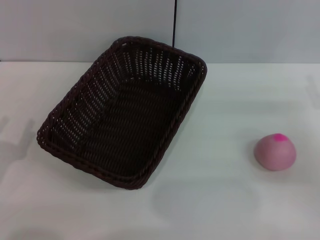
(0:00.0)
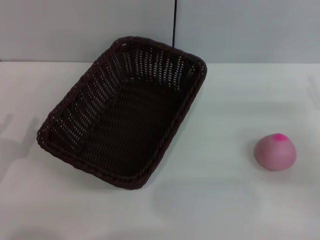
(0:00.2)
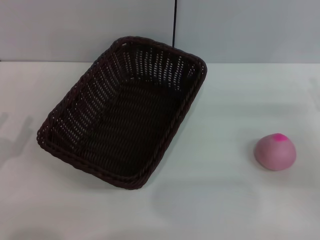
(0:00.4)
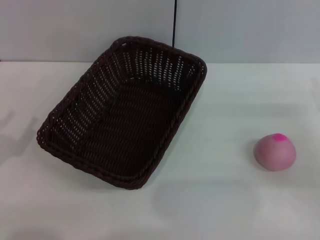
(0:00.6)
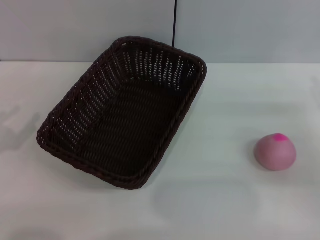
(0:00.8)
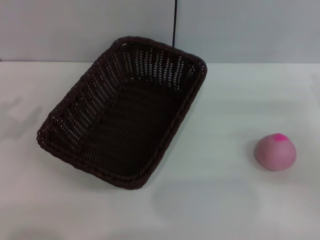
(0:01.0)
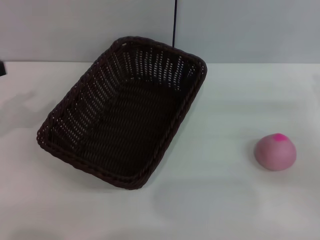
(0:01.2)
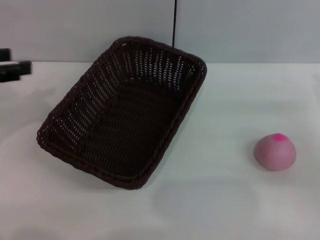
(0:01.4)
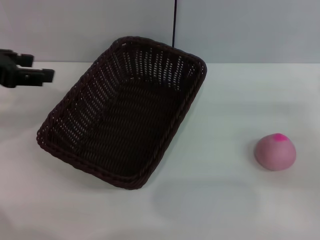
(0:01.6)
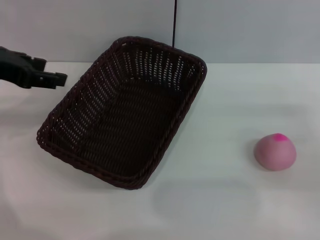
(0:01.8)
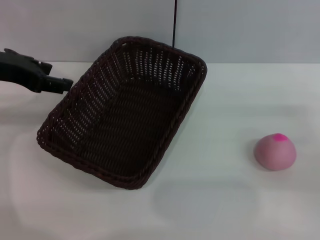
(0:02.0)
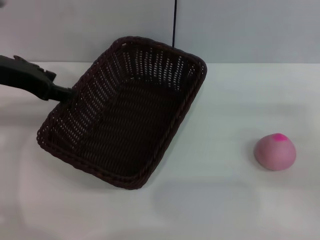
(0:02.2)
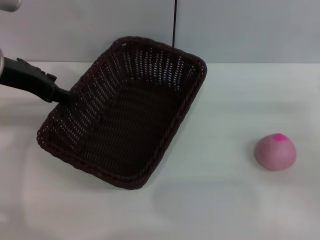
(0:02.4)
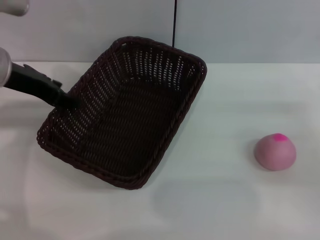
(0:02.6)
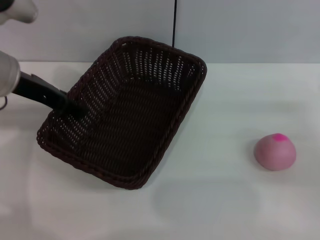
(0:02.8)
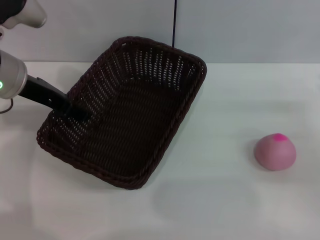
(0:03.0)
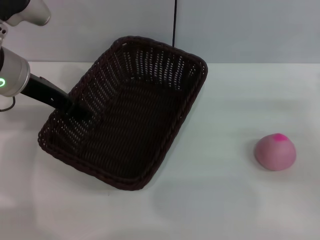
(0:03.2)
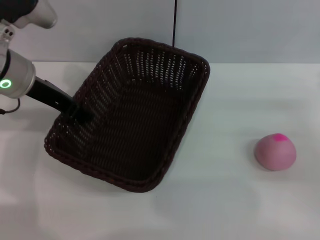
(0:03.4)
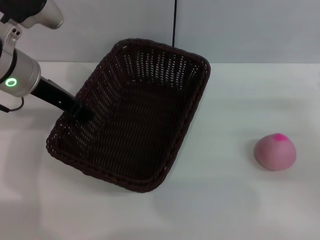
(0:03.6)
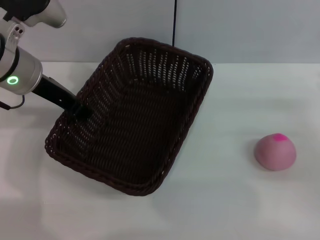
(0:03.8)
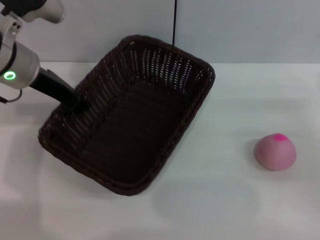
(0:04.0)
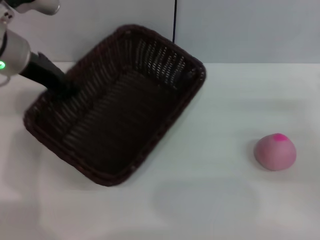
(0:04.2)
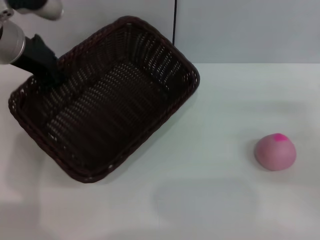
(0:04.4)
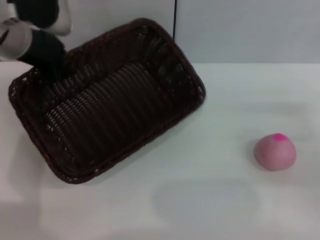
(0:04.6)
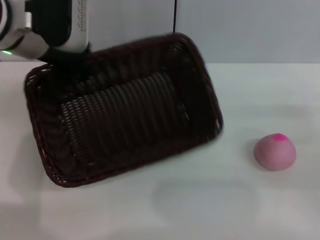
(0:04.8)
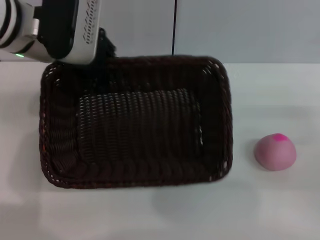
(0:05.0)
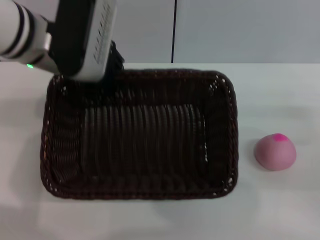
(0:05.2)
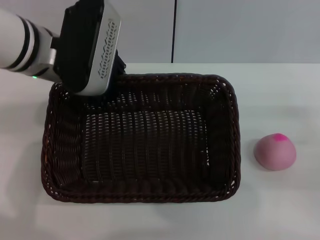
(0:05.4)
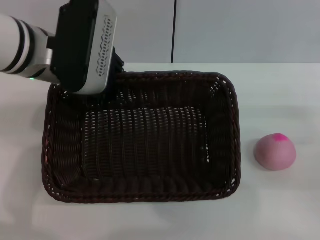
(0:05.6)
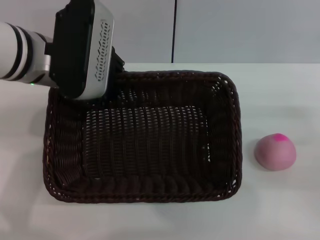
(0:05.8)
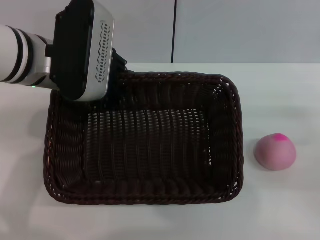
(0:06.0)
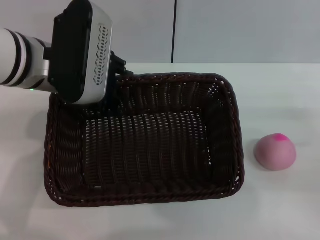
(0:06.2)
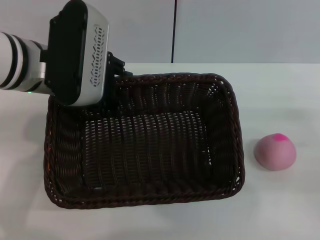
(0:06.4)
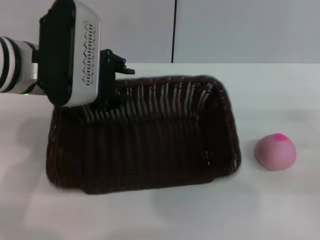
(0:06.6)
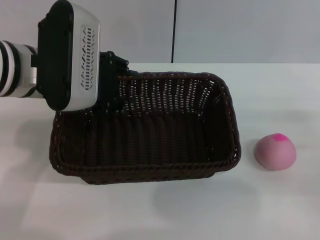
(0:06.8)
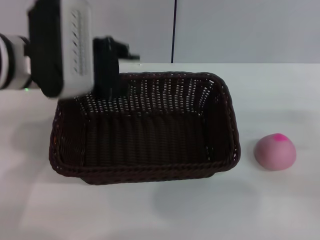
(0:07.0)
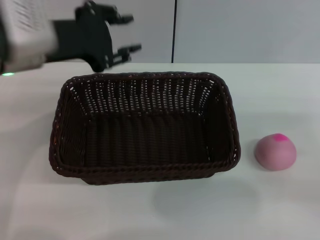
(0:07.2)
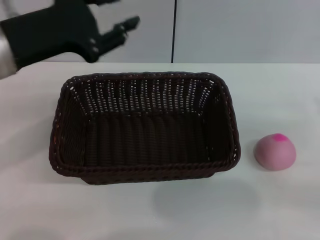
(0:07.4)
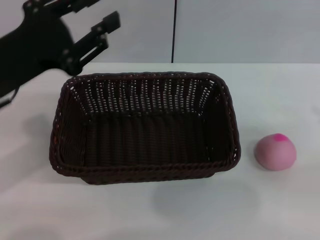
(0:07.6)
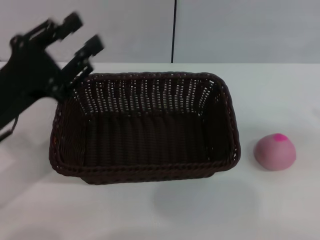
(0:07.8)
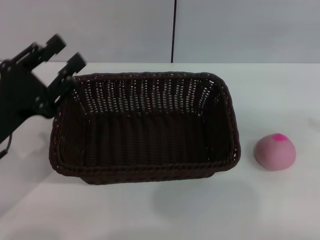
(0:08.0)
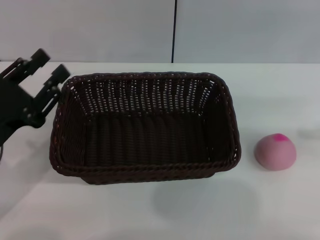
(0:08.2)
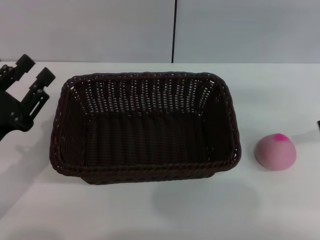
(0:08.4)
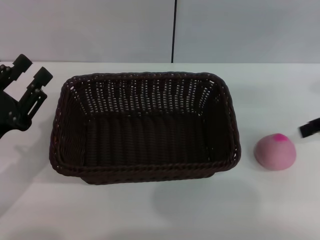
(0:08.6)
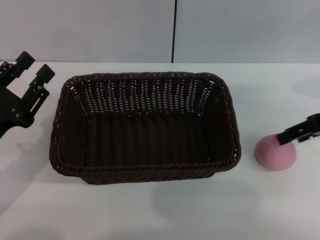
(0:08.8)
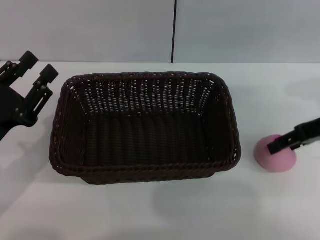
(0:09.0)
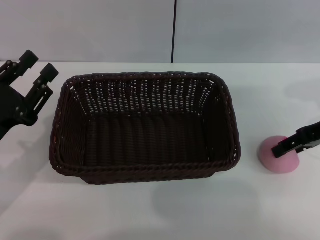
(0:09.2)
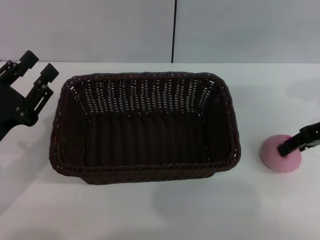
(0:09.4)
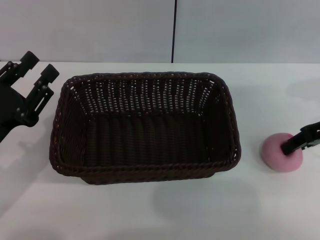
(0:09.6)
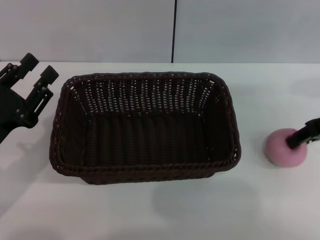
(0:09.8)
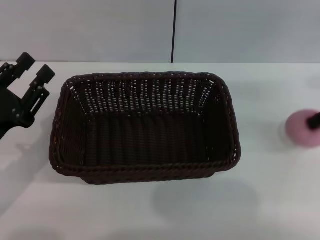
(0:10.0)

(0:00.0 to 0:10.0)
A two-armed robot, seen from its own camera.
Step, 0:00.0 - 0:03.8: Pick up the dark basket with the left gripper.
Step, 0:04.0 - 0:07.0: Place the dark basket in the center of view with the right gripper.
0:00.0 - 0:01.4: The left gripper moves upward and forward, roughly 20 cm.
0:01.4 - 0:02.8: The left gripper travels to the right and forward by about 10 cm.
0:02.8 - 0:04.2: The left gripper closes up.
0:04.2 - 0:05.8: The left gripper shifts roughly 5 cm to the right.
0:07.2 - 0:08.6: The right gripper travels upward and forward by about 15 cm; the left gripper shifts some 20 cm downward, backward and to the left.
0:08.6 - 0:10.0: The right gripper closes.

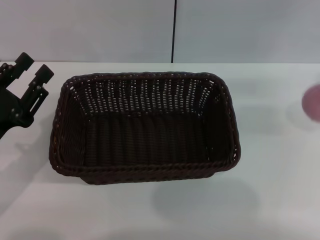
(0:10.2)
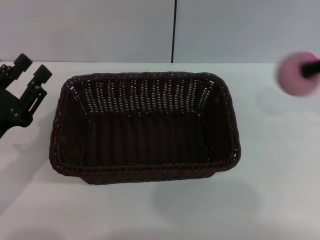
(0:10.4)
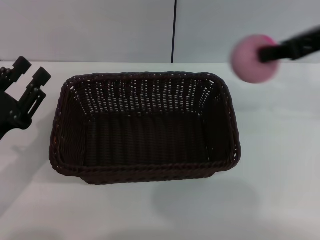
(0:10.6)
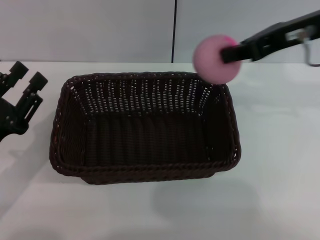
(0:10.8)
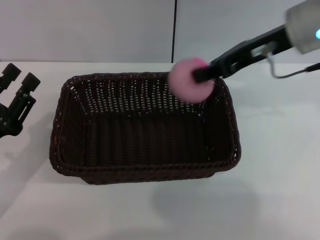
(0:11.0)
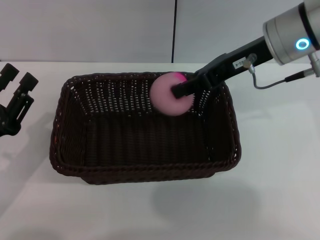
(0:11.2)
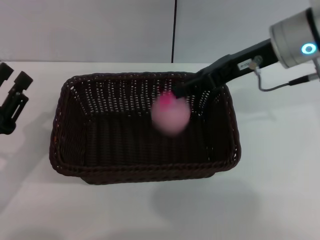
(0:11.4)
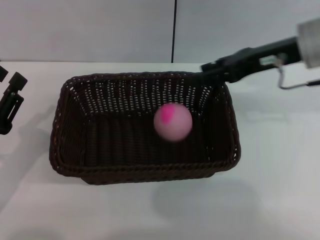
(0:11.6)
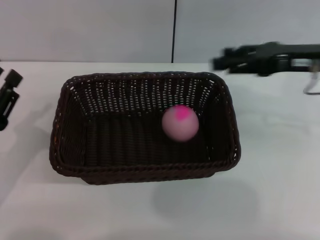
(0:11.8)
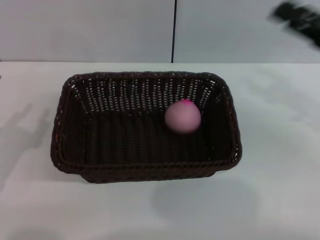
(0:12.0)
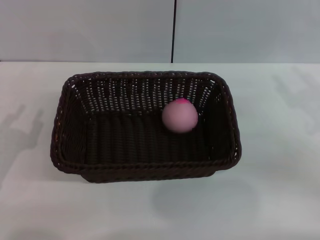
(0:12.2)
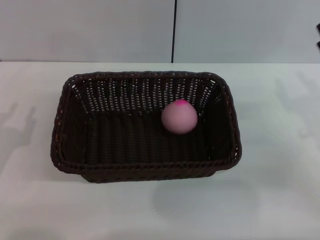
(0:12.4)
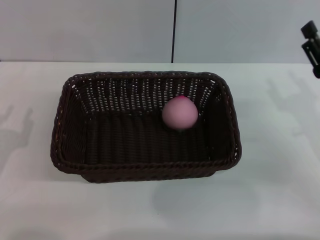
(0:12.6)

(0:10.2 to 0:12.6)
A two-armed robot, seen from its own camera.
0:10.2 - 0:11.4: The right gripper shifts roughly 15 cm to the left.
0:11.4 - 0:12.6: The right gripper shifts roughly 20 cm downward, to the right and backward, and opens its fingers.

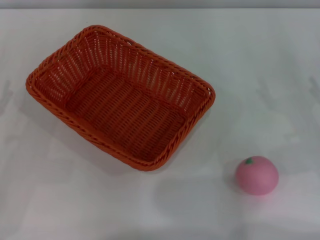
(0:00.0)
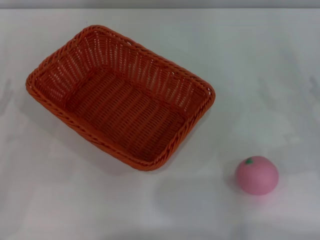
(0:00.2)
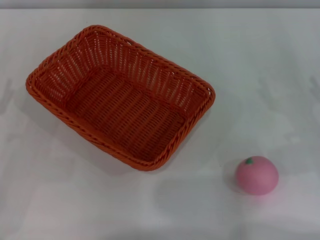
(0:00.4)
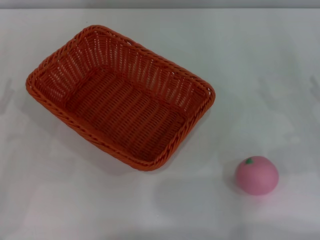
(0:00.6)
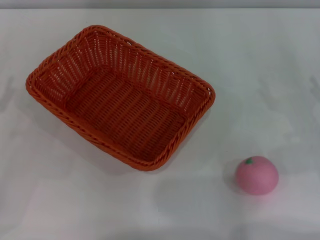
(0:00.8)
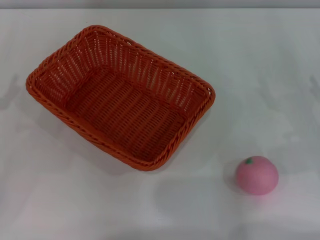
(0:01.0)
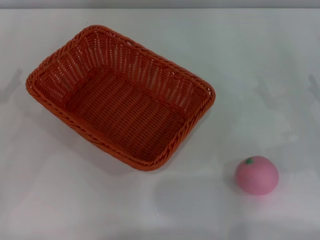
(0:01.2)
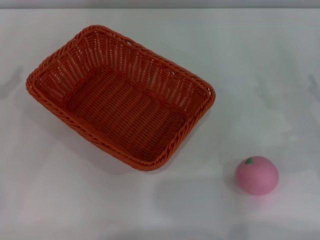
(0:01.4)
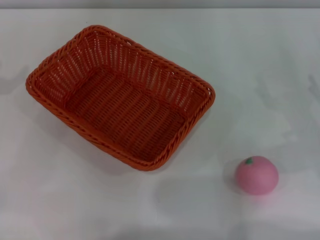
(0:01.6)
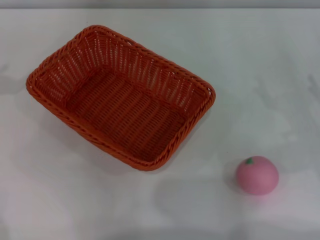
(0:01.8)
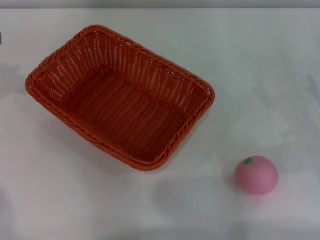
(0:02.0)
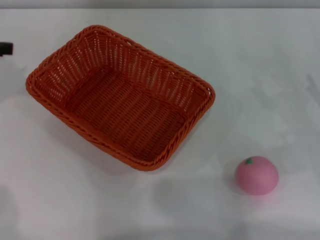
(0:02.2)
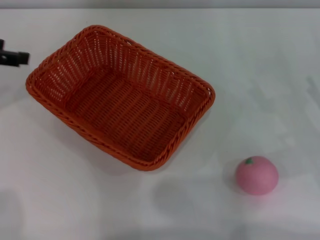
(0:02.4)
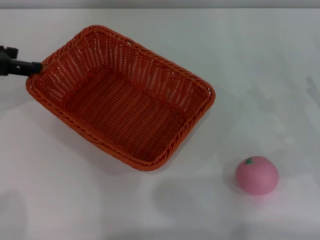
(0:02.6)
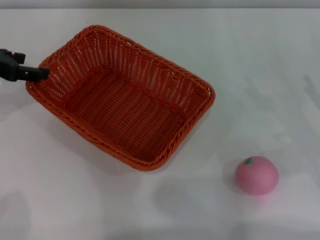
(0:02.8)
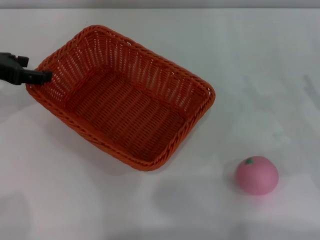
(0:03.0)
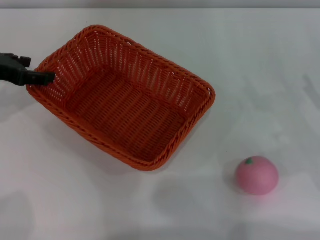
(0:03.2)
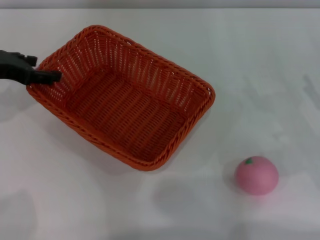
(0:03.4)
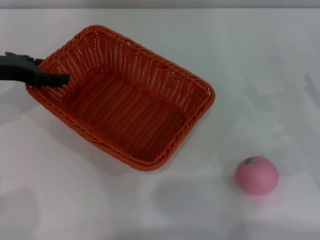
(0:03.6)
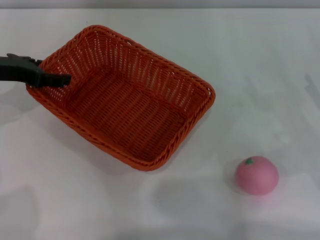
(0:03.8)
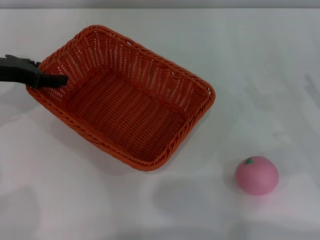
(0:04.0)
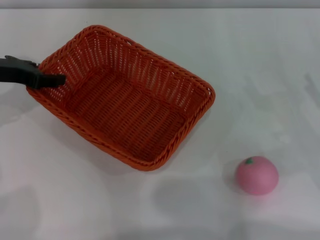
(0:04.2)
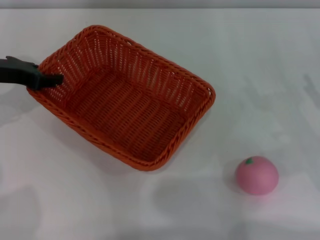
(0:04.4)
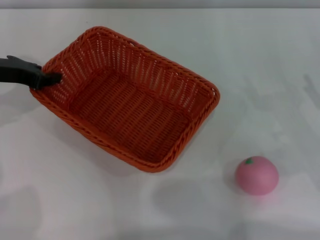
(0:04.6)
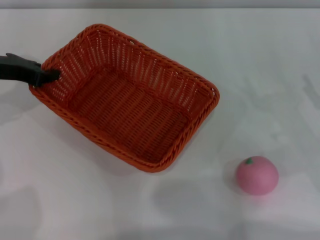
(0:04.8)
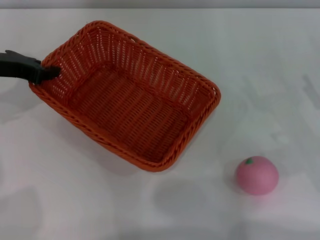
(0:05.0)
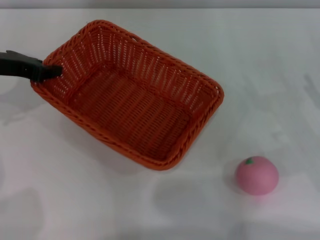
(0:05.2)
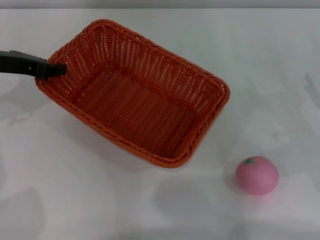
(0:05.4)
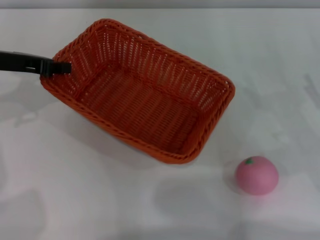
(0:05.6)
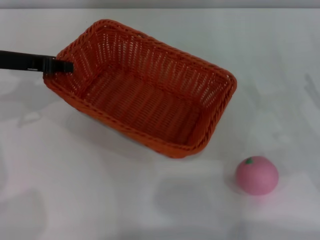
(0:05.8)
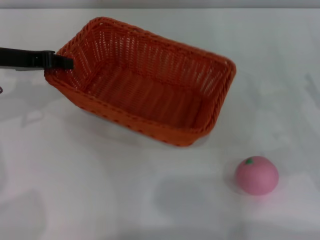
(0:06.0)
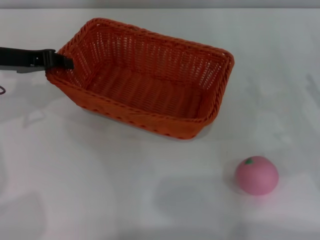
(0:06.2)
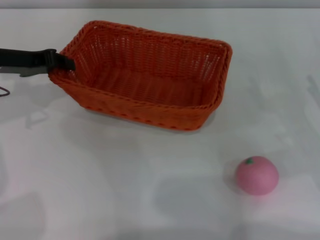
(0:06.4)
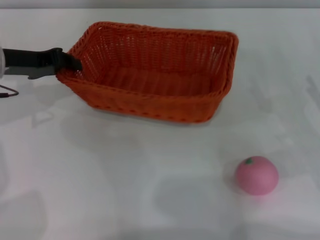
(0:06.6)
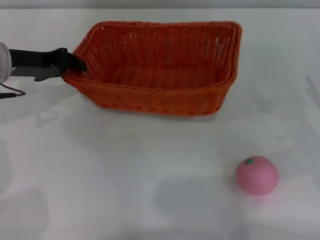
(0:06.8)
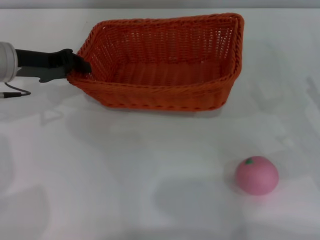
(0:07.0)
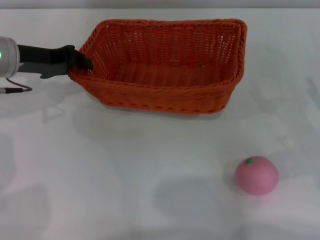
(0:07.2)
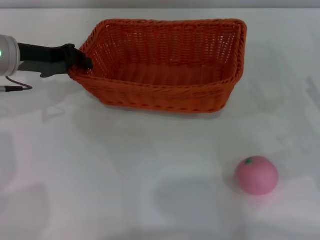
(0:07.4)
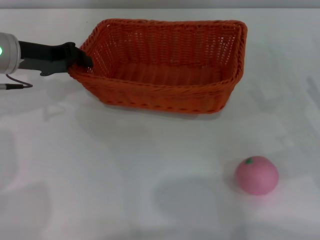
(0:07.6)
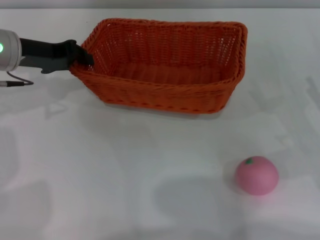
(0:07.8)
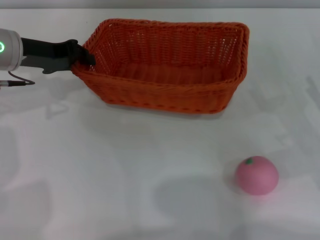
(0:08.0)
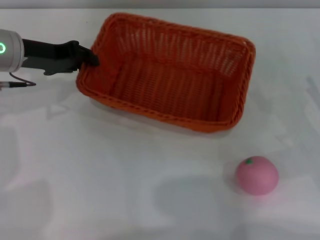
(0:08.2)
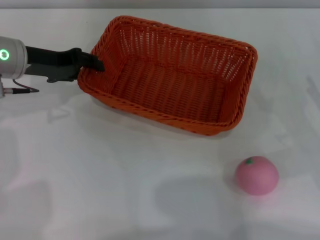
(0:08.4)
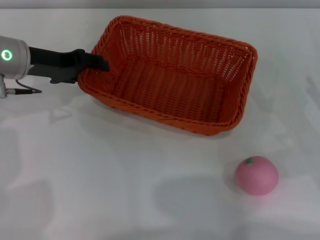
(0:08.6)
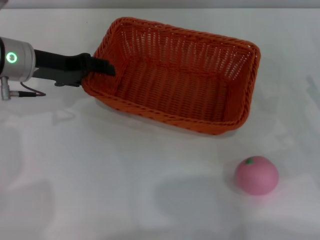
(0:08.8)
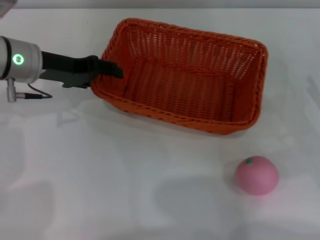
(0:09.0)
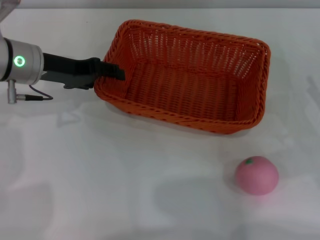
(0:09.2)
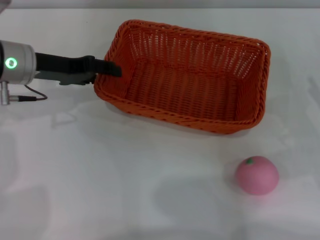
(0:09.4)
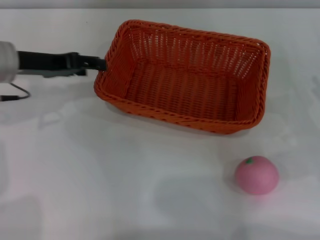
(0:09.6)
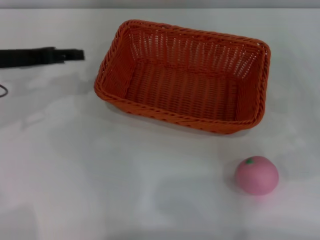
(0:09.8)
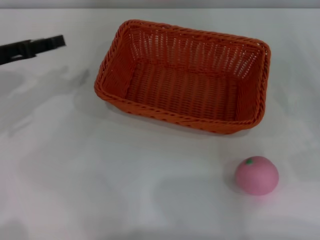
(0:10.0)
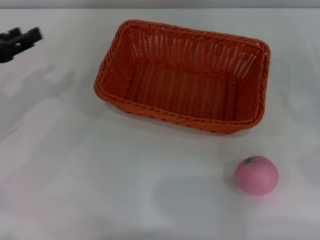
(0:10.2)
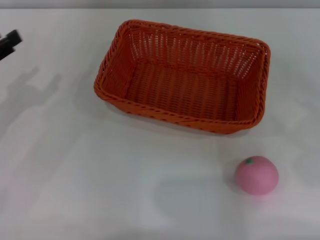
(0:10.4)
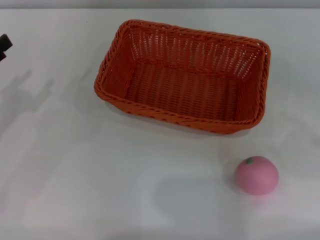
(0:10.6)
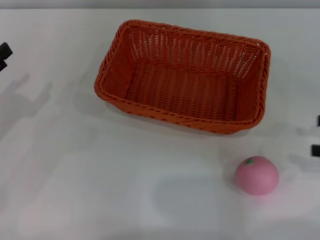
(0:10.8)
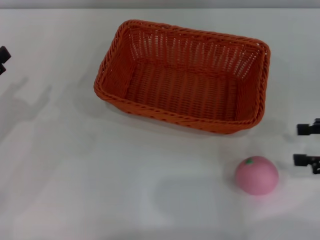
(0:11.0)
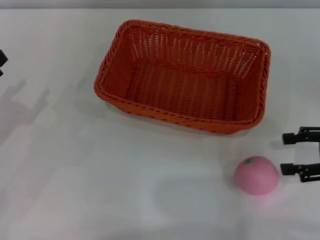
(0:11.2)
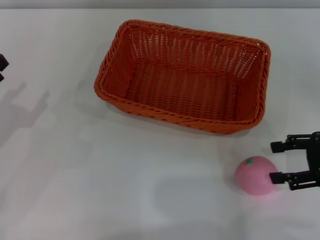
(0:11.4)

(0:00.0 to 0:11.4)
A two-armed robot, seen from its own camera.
Step, 0:00.0 - 0:05.2: Pick up the light basket with the left gripper.
Step, 0:05.6 - 0:09.6: Place the light basket in the center of view with the right gripper.
0:01.4 - 0:02.8: The left gripper is displaced to the right and forward by some 10 cm.
0:02.8 - 0:04.2: The grippers make only small movements.
0:04.2 - 0:05.6: The left gripper closes up.
0:07.2 - 0:08.6: The left gripper opens.
0:08.6 - 0:10.0: The left gripper travels to the left by some 5 cm. Meanwhile the right gripper goes some 5 cm to the right.
0:10.0 - 0:11.4: The right gripper heads to the left, covering roughly 5 cm, while the left gripper shifts approximately 10 cm backward and downward.
